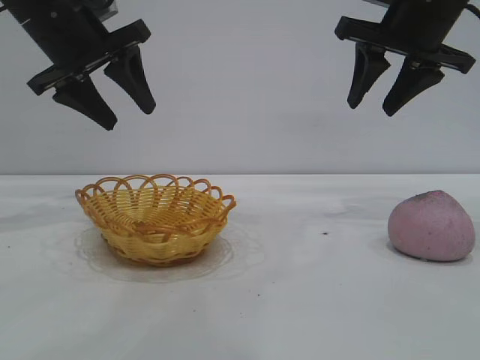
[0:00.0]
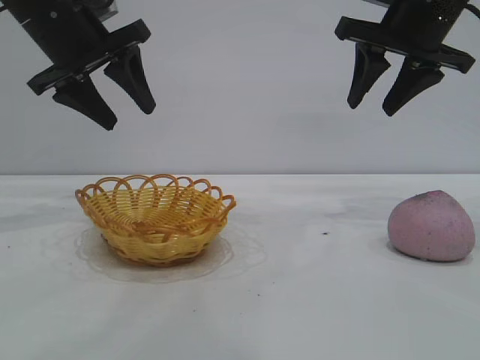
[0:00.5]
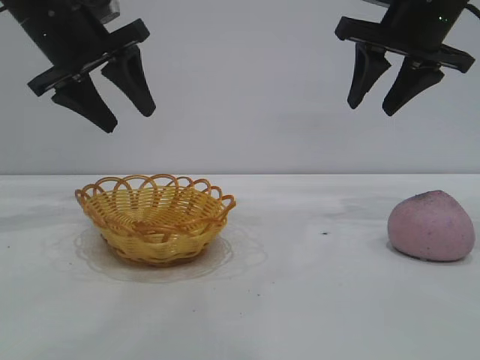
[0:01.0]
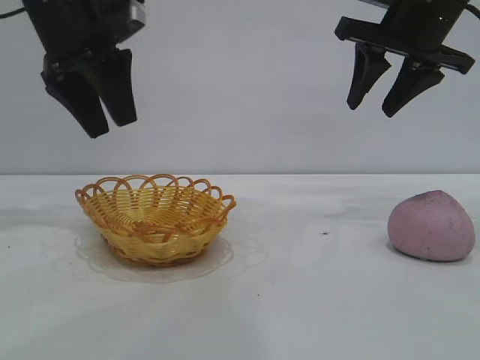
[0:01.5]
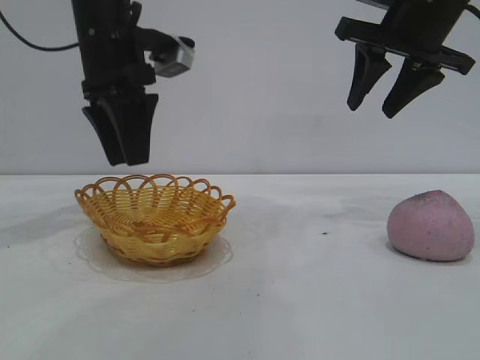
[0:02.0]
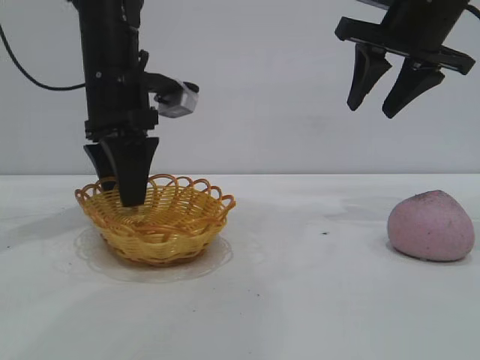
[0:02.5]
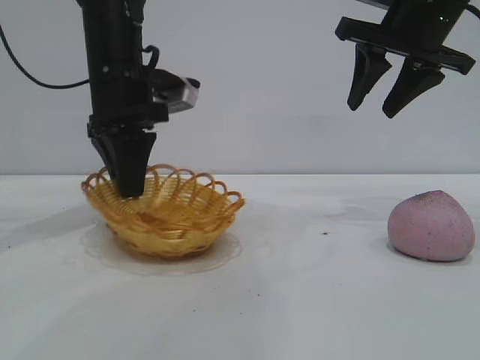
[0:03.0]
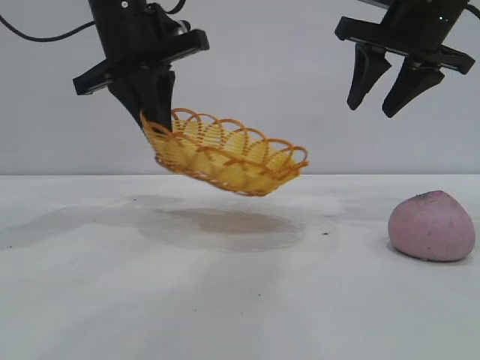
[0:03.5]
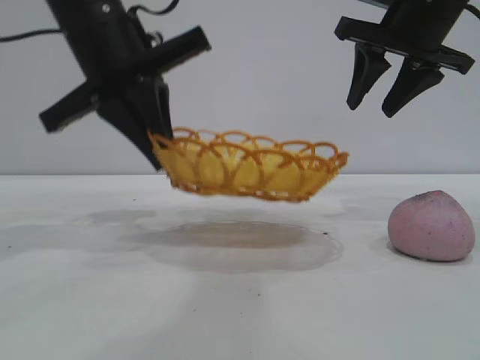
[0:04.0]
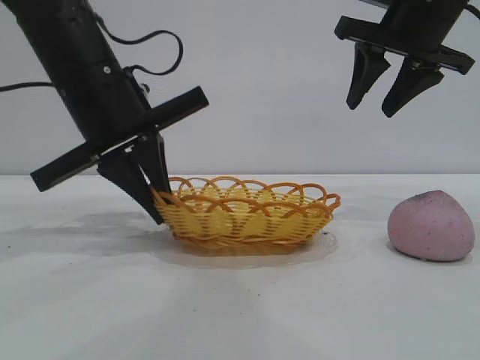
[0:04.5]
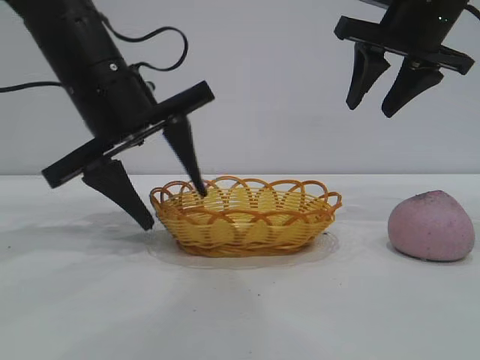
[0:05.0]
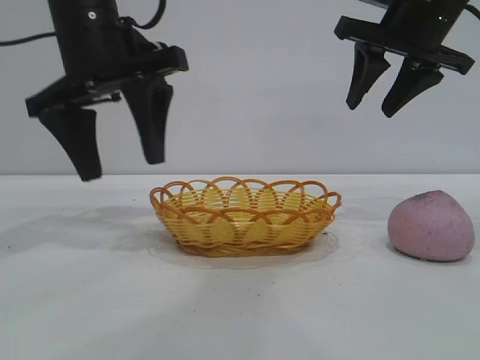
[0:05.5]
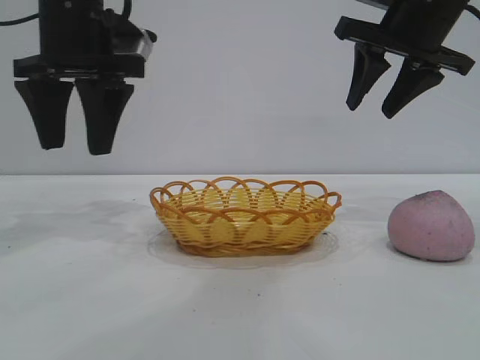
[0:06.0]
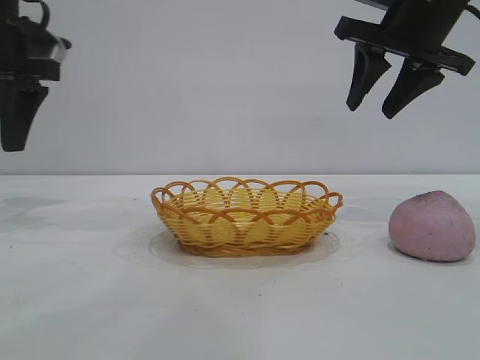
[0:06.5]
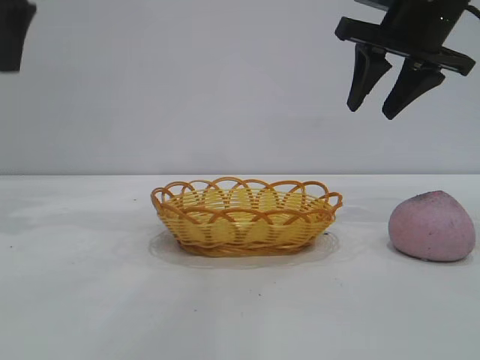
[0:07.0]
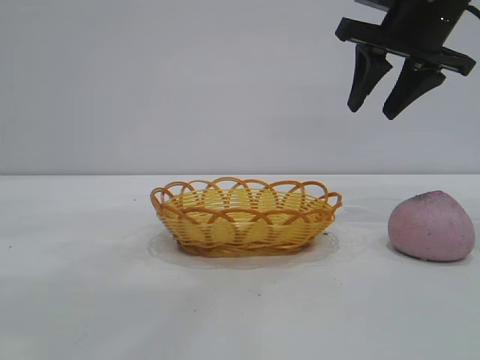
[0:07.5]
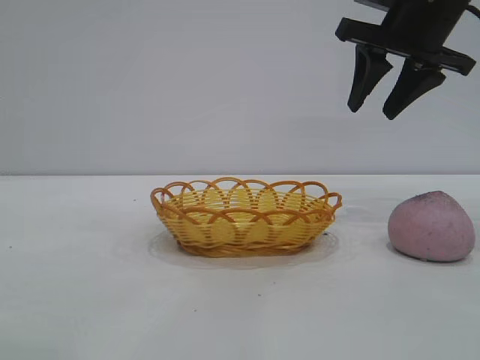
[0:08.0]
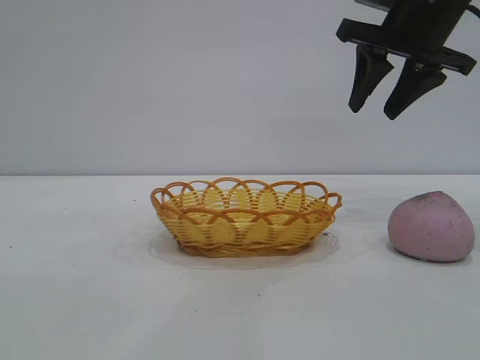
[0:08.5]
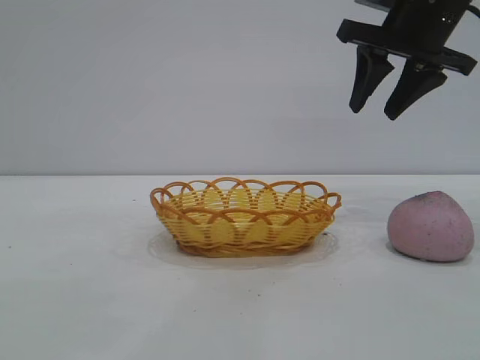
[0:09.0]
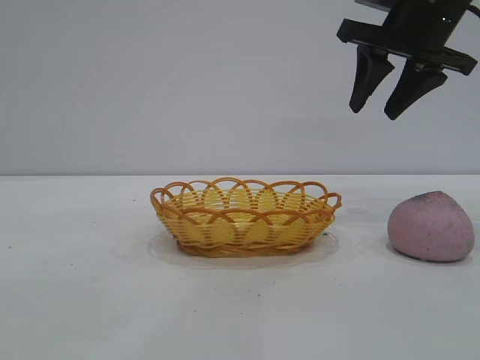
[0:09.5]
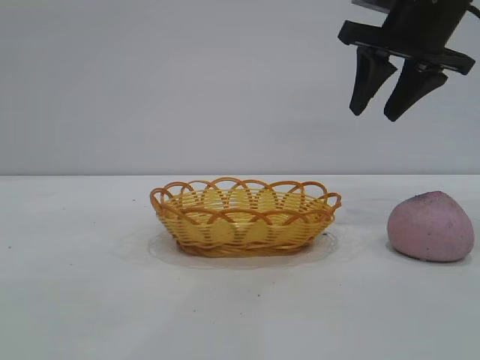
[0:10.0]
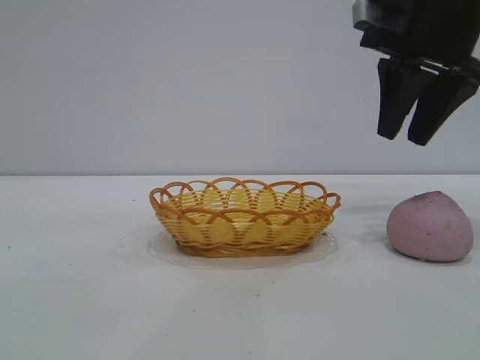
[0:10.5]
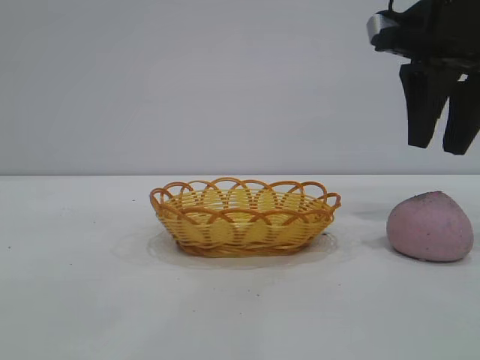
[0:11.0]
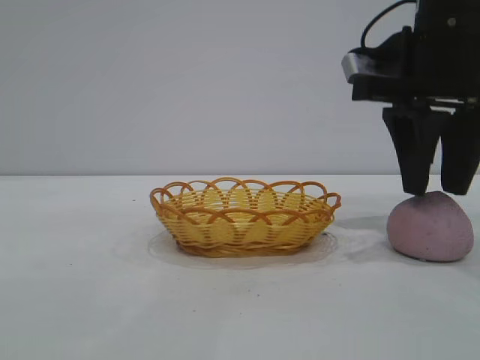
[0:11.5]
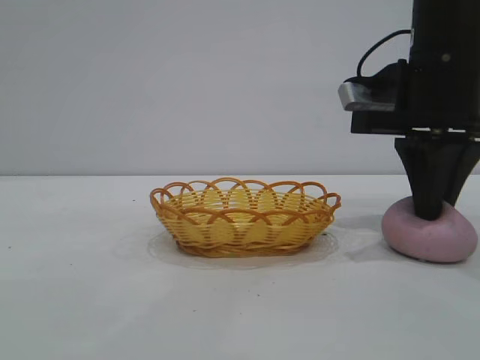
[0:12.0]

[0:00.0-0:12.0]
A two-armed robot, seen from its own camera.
Task of the whole recording: pick up the peach and put it into the basket.
Step, 0:00.0 to 0:05.0: Move the basket to the center of view.

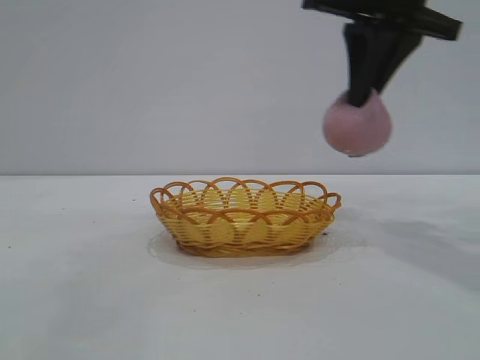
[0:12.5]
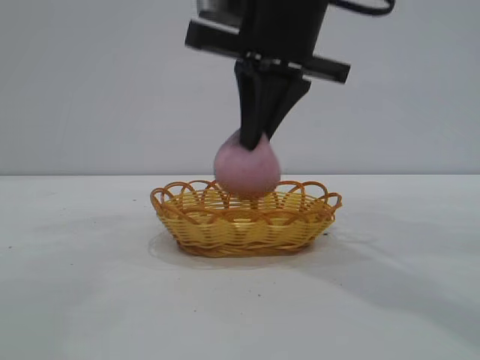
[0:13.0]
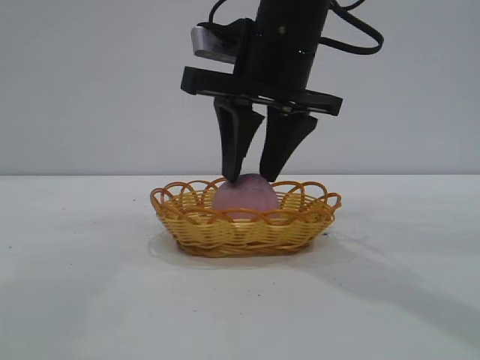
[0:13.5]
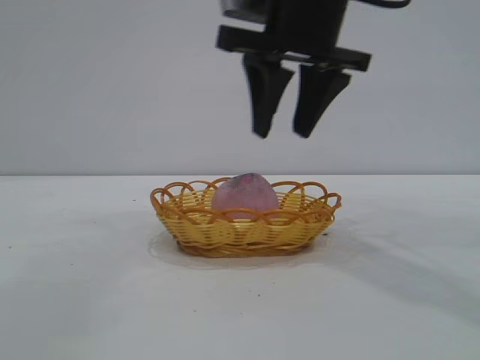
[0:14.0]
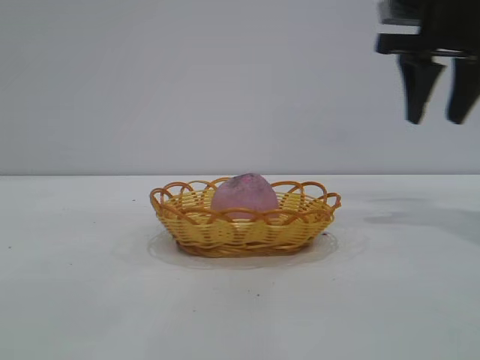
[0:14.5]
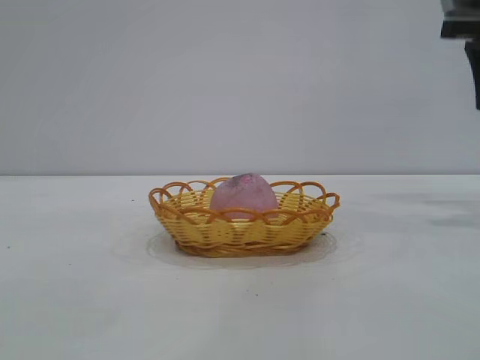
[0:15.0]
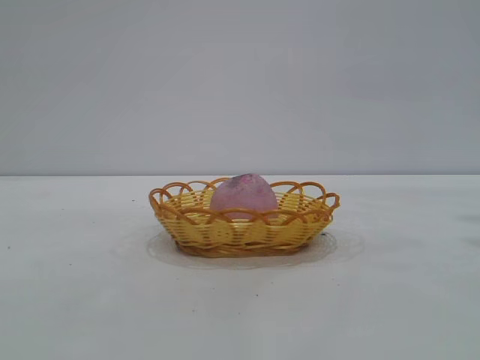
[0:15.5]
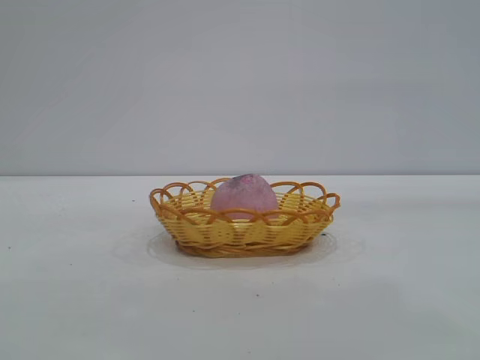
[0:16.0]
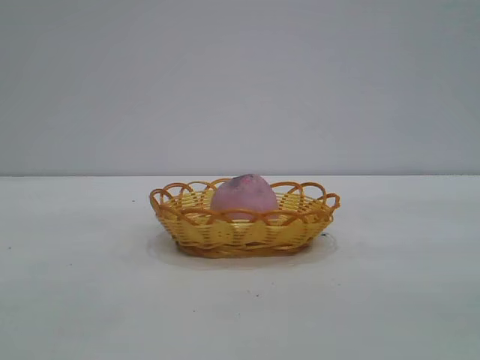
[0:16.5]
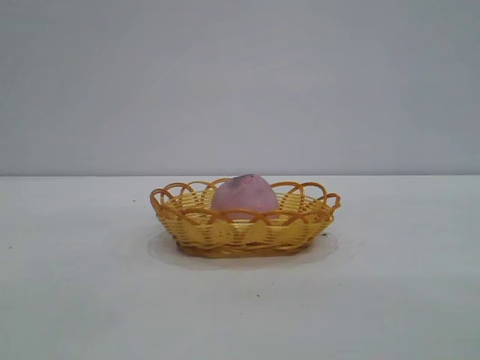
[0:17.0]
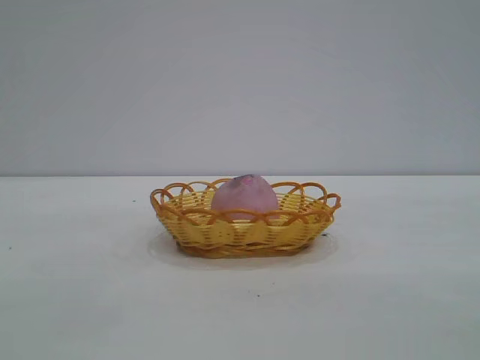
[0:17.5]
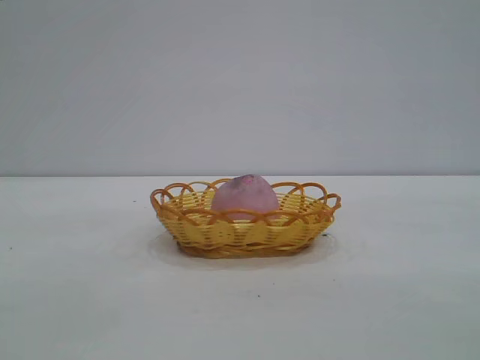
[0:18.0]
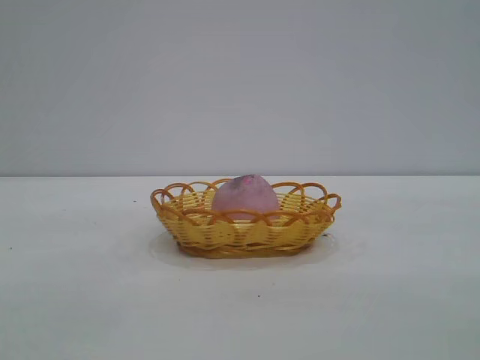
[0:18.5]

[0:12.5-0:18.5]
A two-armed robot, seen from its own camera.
Task of the whole recording: pick up the peach and put it into the basket.
Step, 0:12.5 to 0:14.0: place the peach into the basket.
